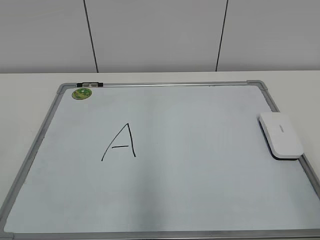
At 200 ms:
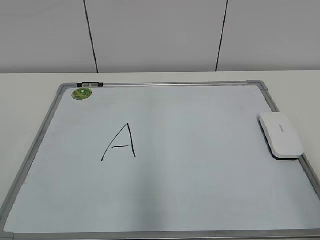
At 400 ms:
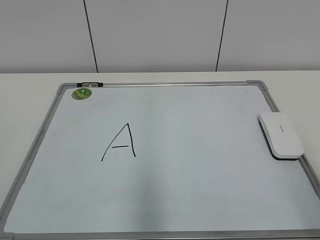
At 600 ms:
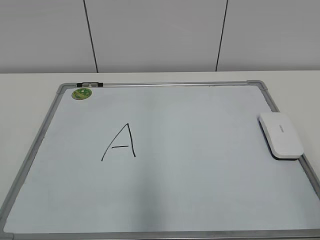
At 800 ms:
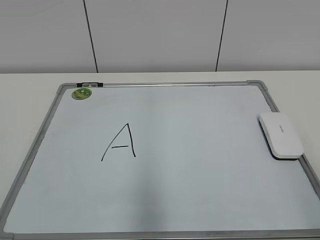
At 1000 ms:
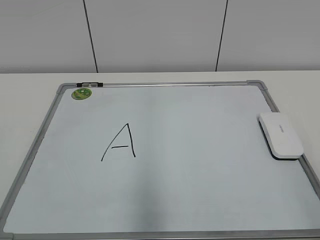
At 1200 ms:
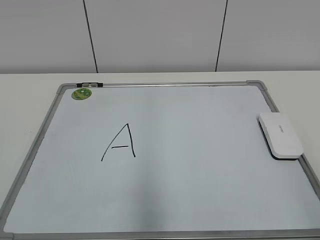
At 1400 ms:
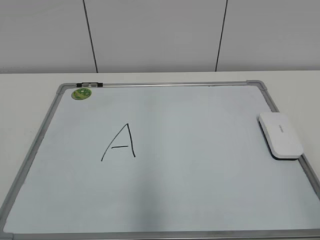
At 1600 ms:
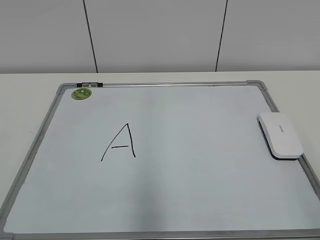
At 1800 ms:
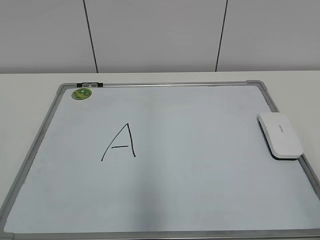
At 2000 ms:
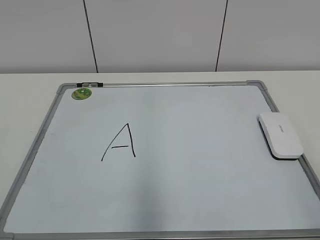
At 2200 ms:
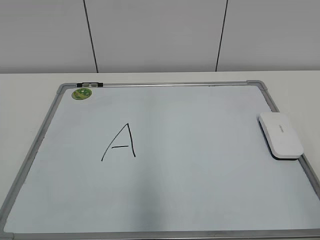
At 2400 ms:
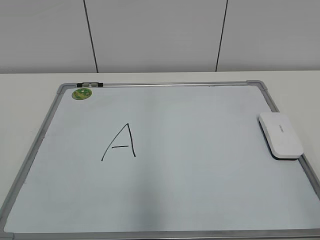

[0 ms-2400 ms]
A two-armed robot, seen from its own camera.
Task of the whole recording: pick up the eraser on the blackboard and erase the letter "a".
1200 ms to 2400 ms: Both grippers stay put.

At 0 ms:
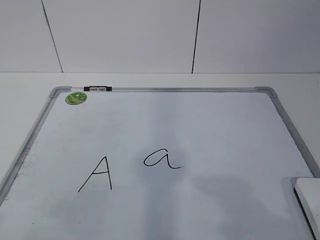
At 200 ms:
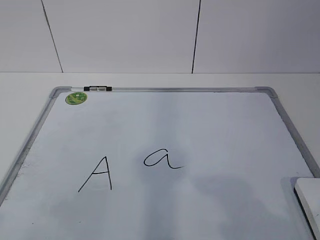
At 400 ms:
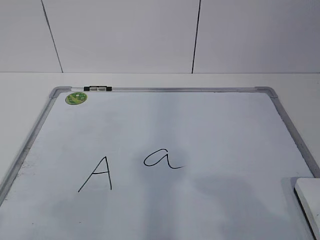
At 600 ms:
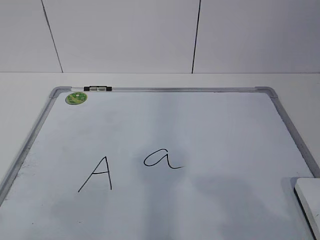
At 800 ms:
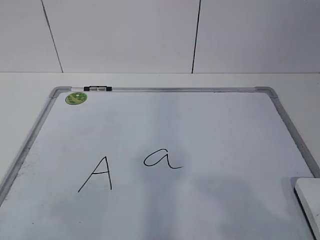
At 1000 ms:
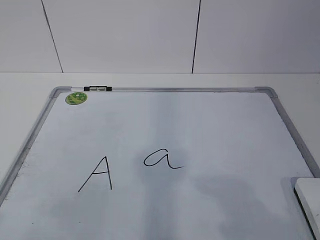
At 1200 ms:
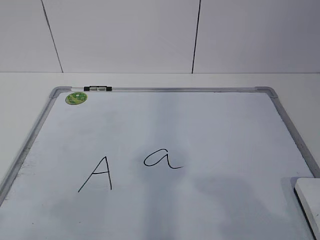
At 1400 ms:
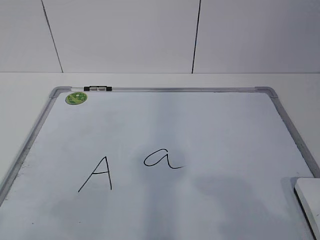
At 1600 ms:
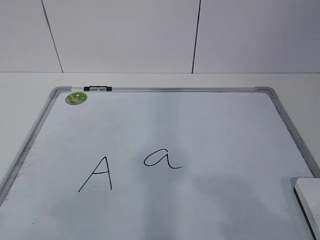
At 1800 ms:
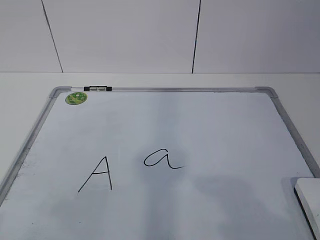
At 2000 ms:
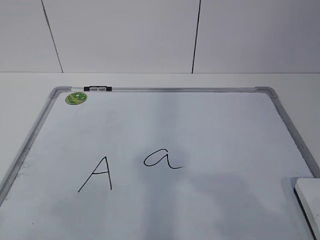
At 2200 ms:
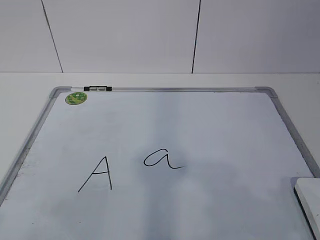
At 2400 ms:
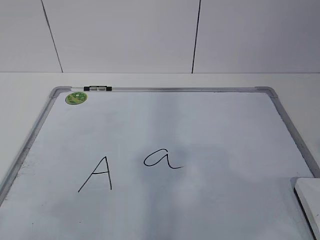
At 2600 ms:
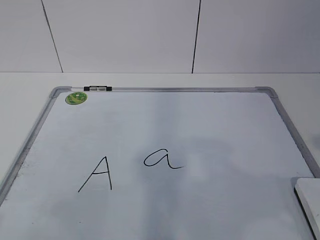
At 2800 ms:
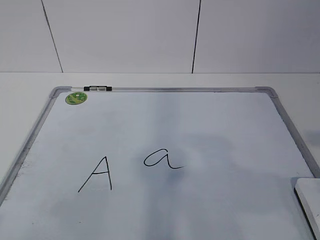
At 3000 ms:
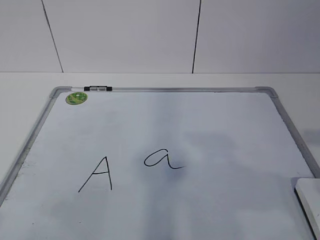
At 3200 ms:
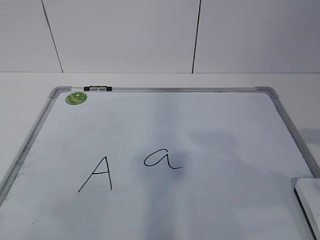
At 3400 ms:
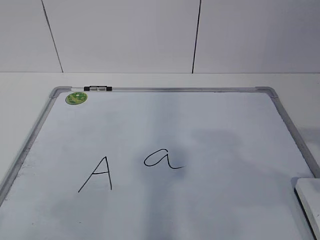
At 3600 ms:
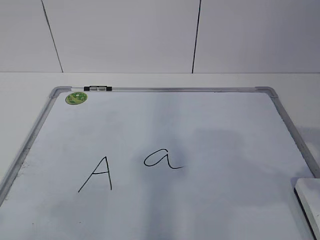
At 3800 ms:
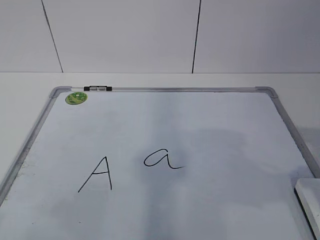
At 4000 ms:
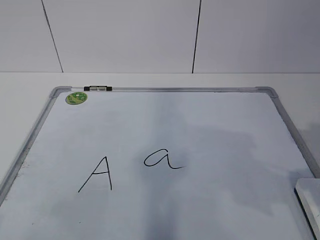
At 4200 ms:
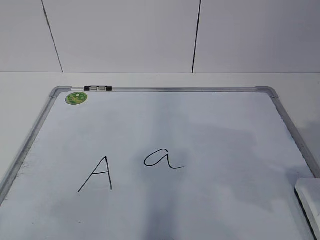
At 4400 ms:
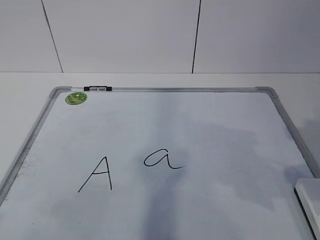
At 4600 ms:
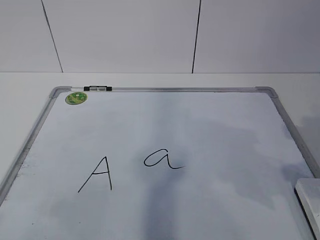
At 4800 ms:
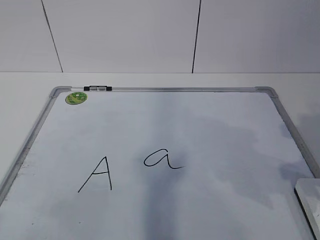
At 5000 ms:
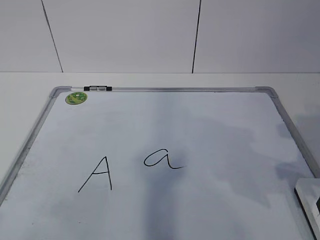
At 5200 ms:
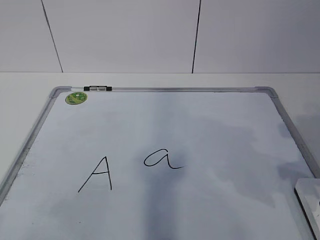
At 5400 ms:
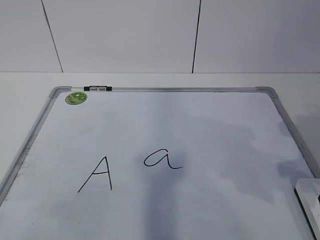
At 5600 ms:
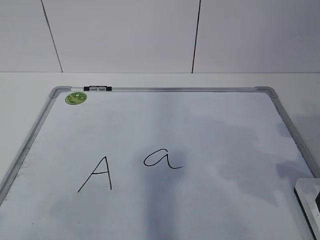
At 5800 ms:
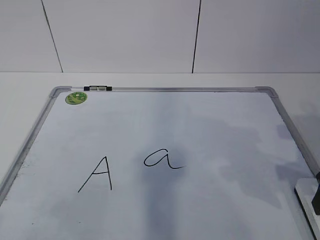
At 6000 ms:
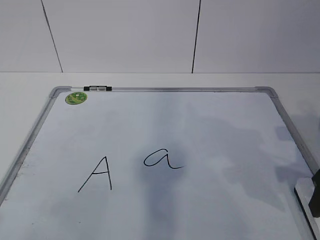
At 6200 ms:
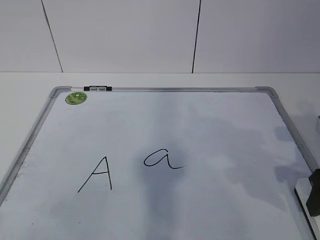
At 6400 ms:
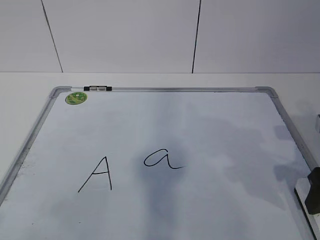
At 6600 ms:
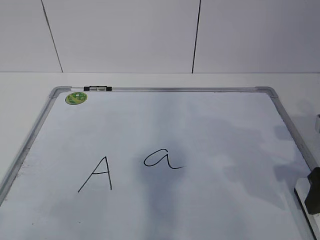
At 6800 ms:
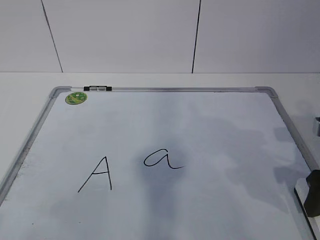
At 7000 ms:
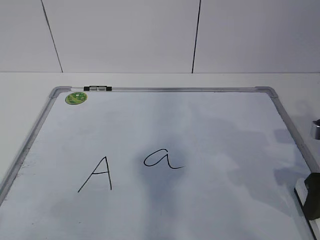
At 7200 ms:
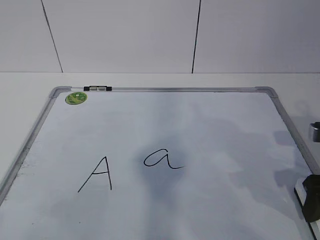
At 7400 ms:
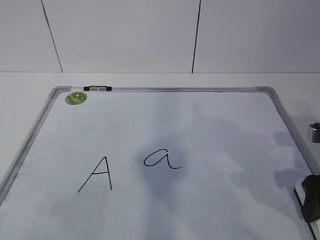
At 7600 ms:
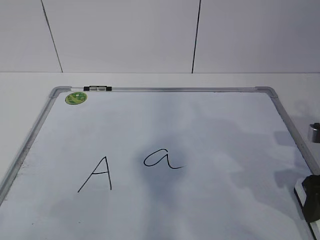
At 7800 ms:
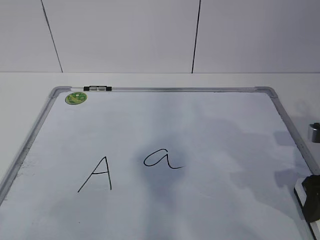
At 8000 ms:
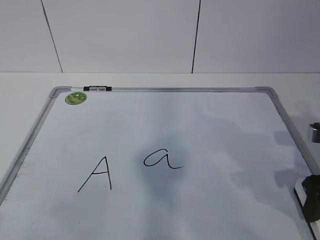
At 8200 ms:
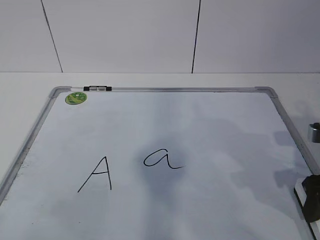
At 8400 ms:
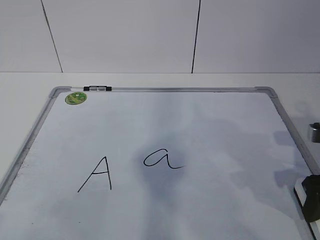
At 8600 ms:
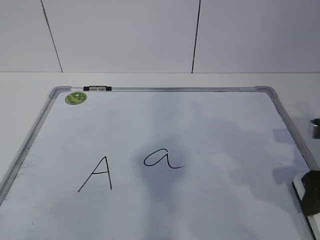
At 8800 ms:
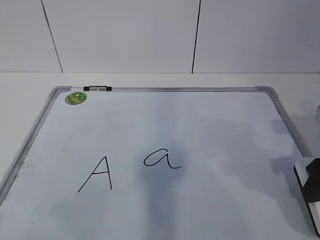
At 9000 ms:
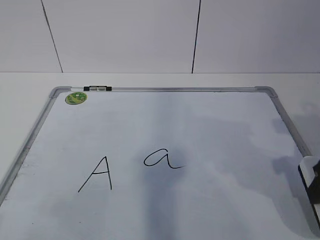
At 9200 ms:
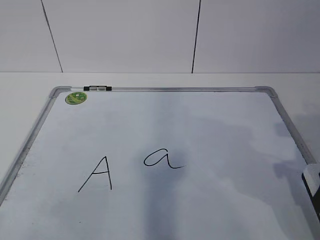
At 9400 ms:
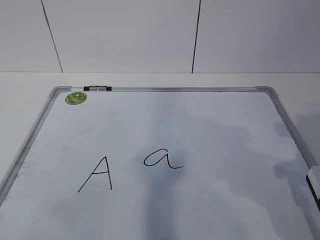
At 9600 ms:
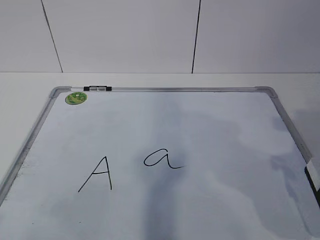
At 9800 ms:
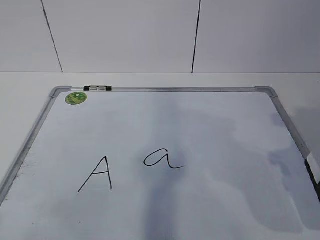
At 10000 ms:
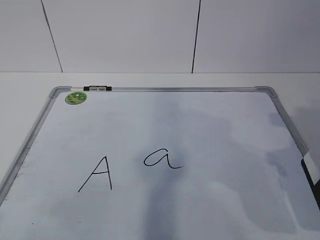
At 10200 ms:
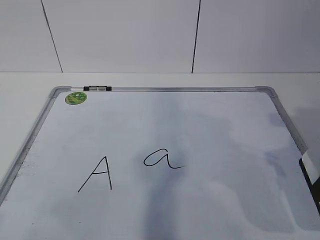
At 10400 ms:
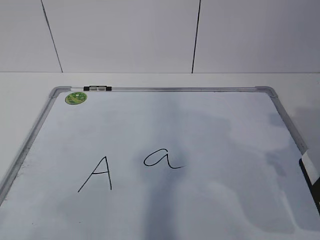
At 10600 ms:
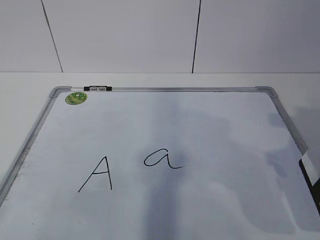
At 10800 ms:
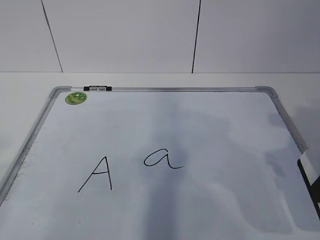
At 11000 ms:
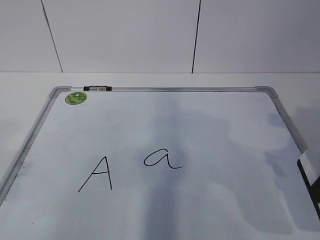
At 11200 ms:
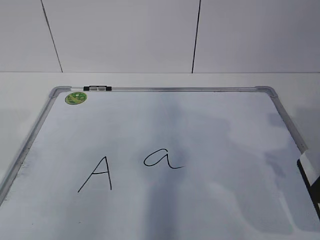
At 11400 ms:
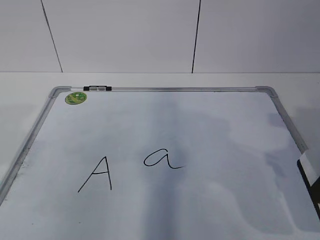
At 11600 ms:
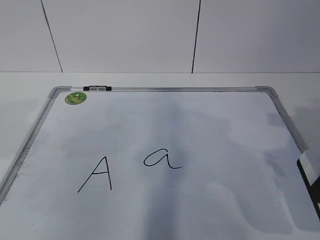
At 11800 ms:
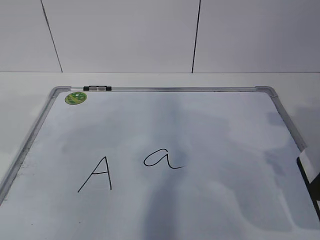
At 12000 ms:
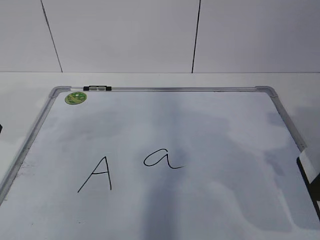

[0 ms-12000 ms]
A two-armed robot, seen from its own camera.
Task of the whole recording: pick up the eraser on the blackboard and erase the letter "a".
4400 ms to 6000 ms: The right gripper moves approximately 5 cm.
7600 ms to 9000 ms: The right gripper closes its fingers.
9000 ms to 10400 ms: The right gripper shifts by about 5 cm.

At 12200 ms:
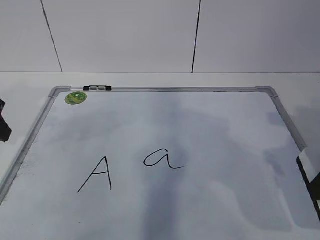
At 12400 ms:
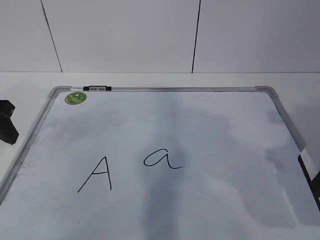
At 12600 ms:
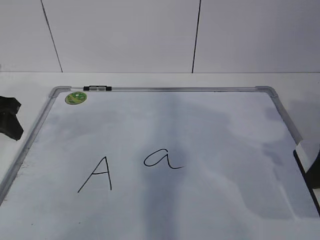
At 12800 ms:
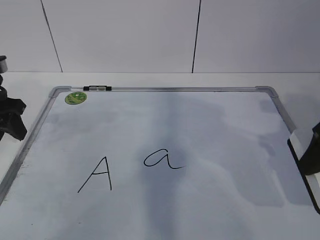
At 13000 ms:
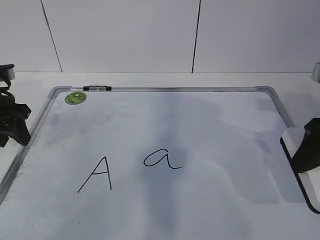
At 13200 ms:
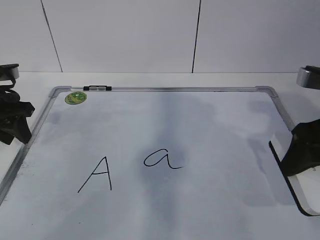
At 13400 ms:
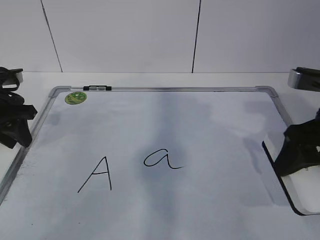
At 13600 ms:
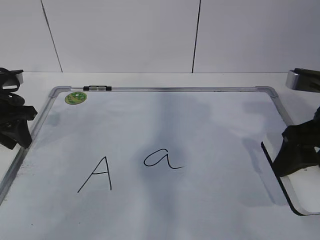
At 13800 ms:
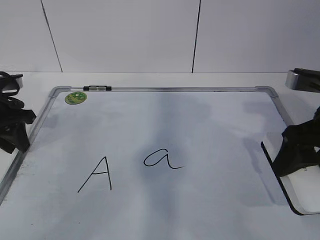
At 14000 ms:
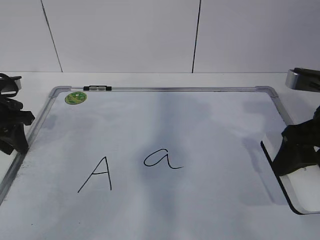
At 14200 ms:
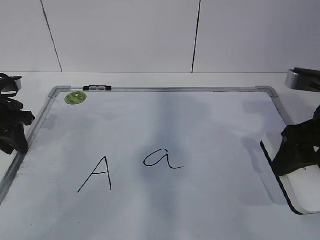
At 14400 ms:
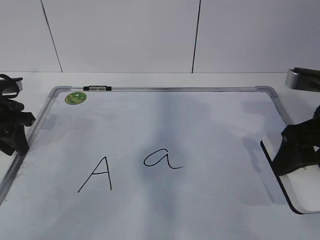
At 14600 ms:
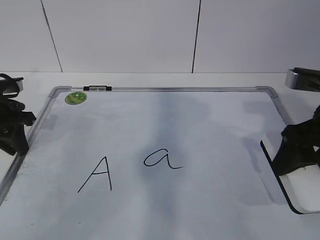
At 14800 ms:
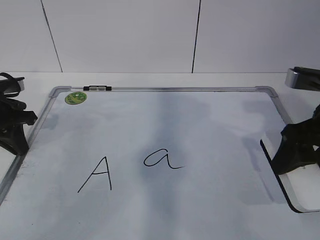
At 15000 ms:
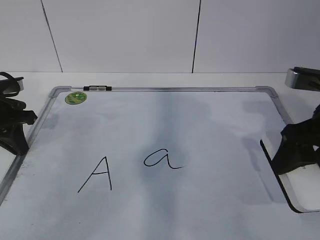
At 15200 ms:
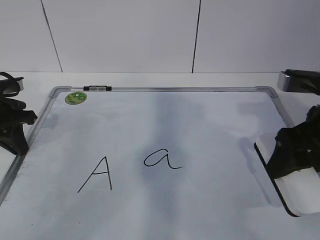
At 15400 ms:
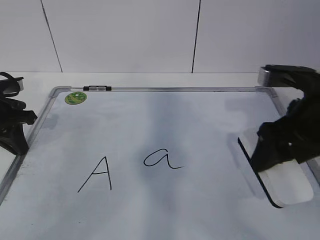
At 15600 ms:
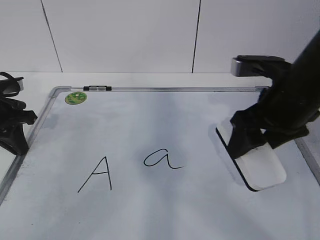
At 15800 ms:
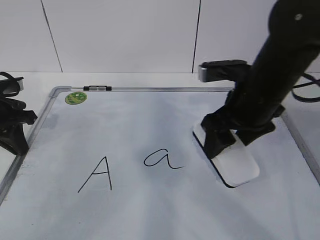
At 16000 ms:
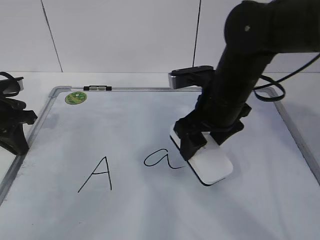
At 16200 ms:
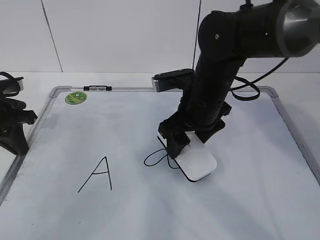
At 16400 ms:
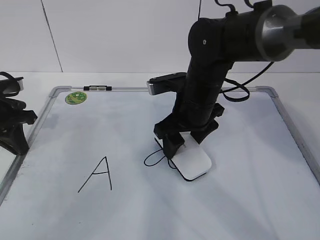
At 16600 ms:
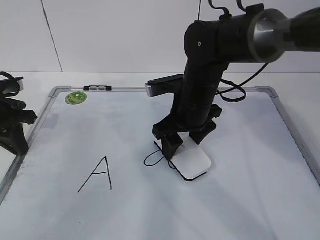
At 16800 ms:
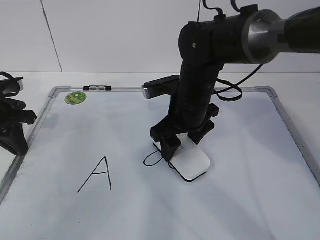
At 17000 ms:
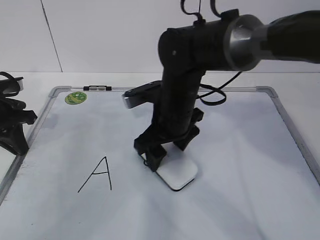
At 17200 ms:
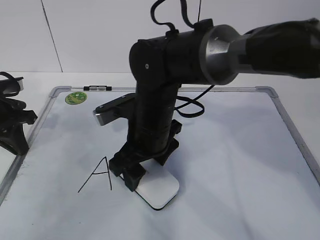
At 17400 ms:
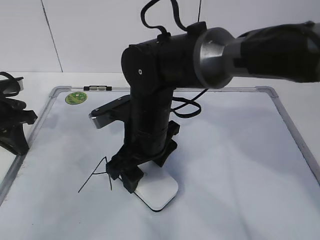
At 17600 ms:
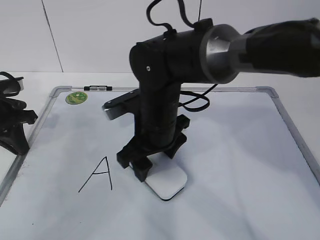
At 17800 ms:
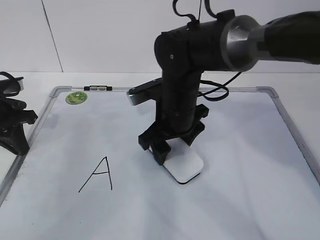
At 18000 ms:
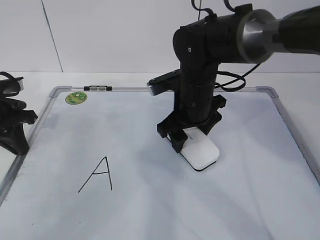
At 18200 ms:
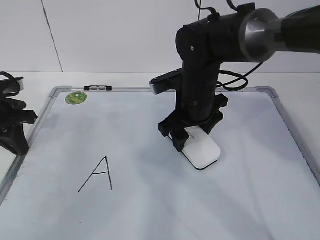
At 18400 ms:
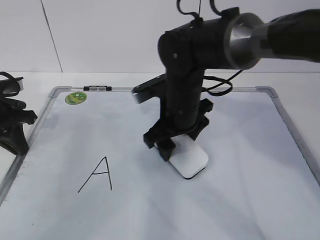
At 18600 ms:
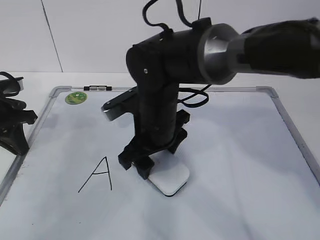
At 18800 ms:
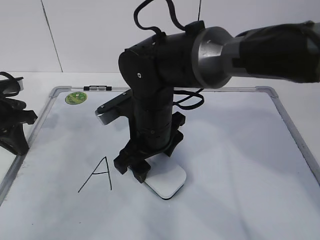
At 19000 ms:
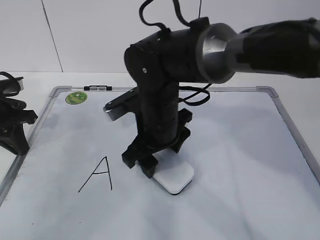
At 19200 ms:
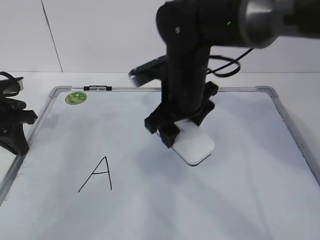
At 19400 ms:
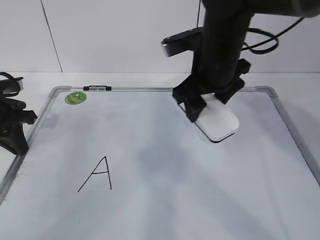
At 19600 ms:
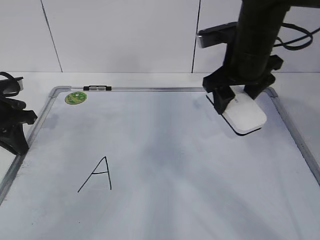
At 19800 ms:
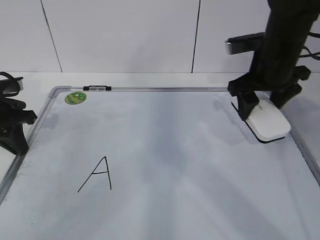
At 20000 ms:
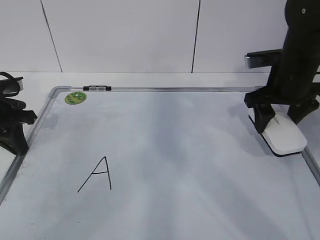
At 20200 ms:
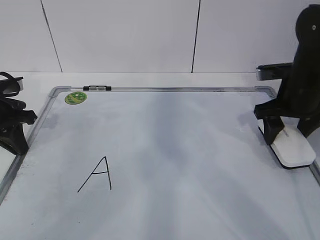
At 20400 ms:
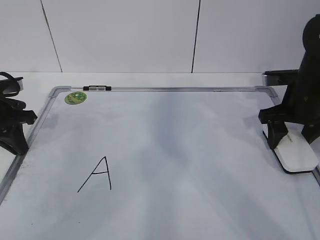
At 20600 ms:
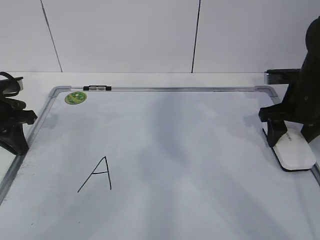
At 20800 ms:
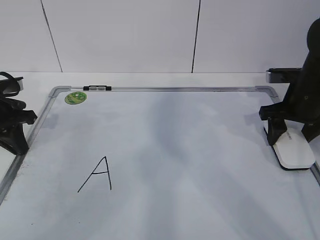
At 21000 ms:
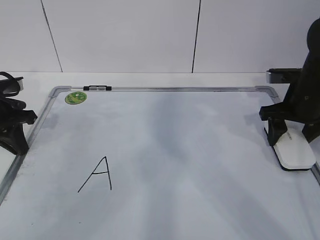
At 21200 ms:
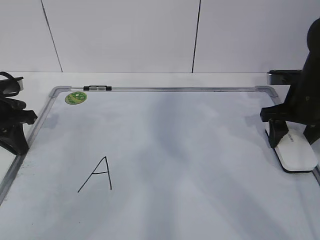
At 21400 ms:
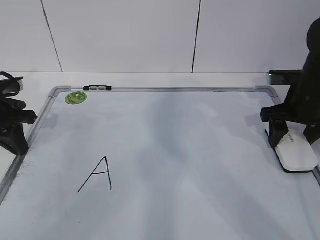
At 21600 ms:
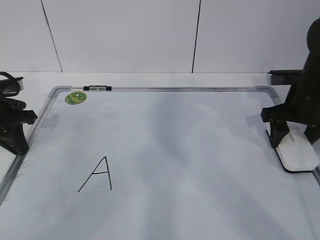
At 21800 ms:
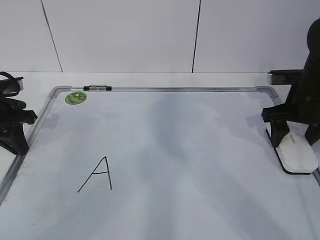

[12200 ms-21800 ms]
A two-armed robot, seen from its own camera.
Task of the whole recording: pick up the eraser on the blackboard and erase the letter "a".
Step, 12400 ms to 15600 ms: Erase the letter a with your right hand.
Step, 15800 ms to 18200 ms: Put down the eraser with your right hand.
12200 ms to 13800 ms: The left gripper goes some 10 cm forward and downward, and closes. Meanwhile the right gripper travels forward by roughly 5 cm.
13800 ms to 15400 ms: The left gripper closes.
15400 ms to 17000 ms: The right gripper goes roughly 20 cm to the left, forward and downward.
17000 ms to 18600 ms: The right gripper goes left and right, about 10 cm each way, reversing 2 times.
18600 ms to 20200 ms: The right gripper shifts some 25 cm to the right.
20200 ms to 21800 ms: The grippers make only small movements.
